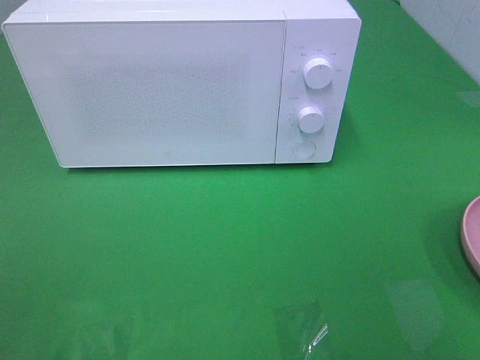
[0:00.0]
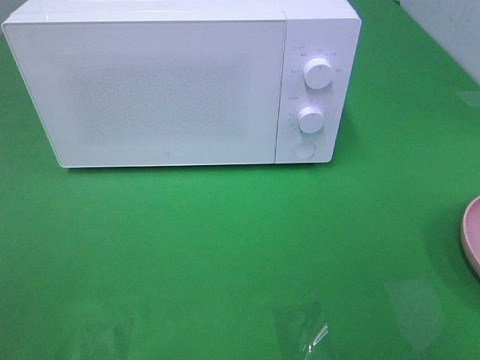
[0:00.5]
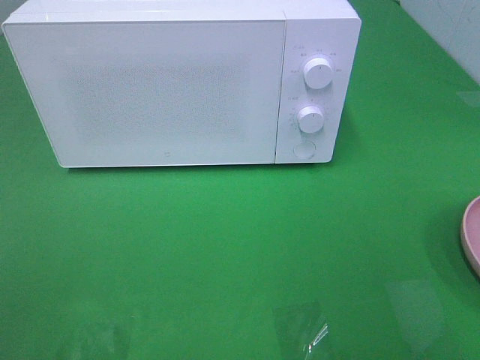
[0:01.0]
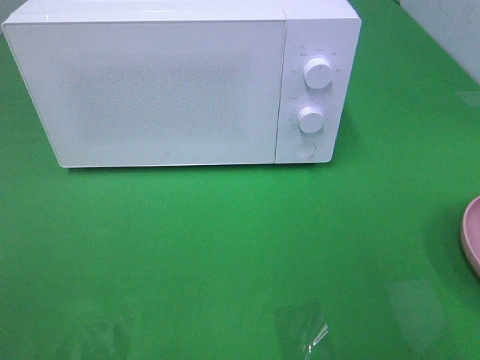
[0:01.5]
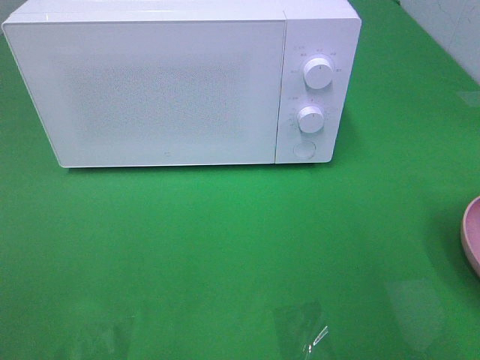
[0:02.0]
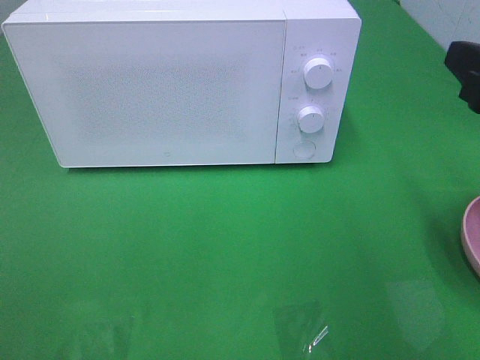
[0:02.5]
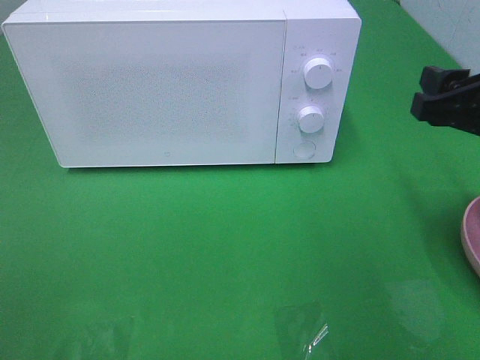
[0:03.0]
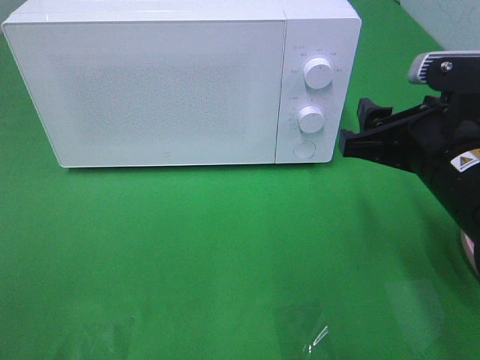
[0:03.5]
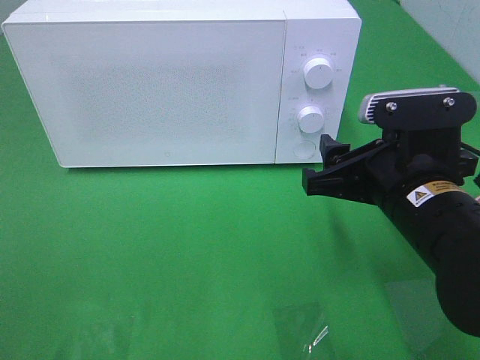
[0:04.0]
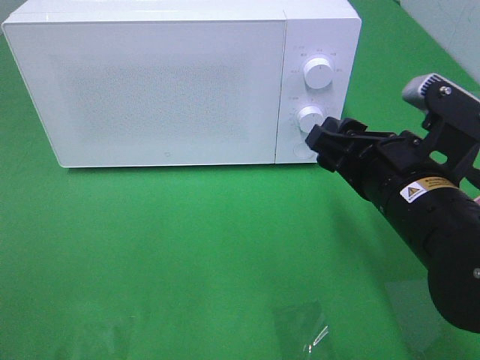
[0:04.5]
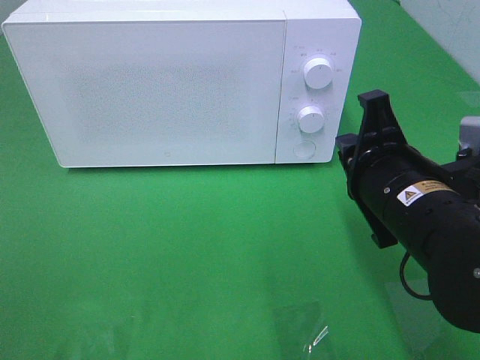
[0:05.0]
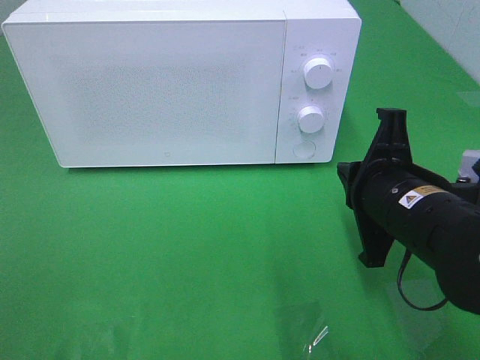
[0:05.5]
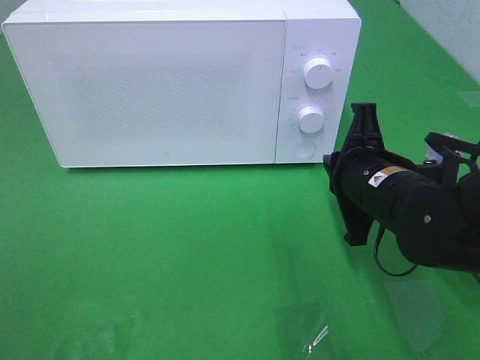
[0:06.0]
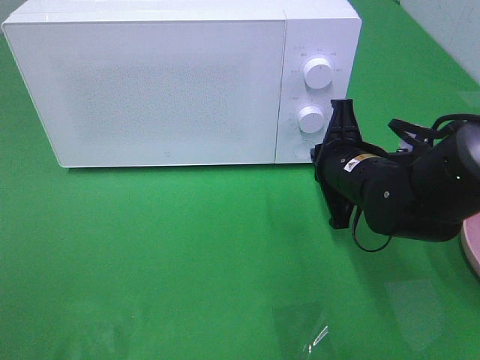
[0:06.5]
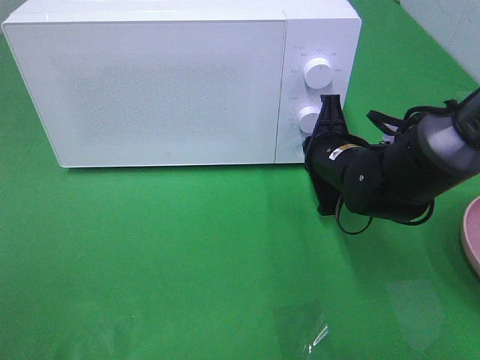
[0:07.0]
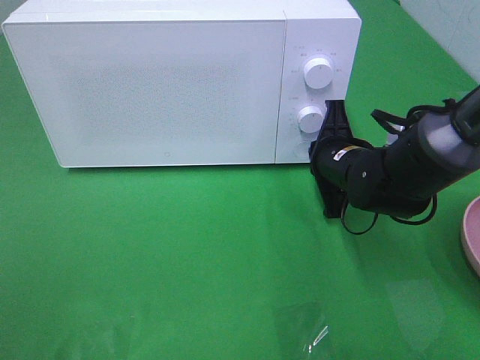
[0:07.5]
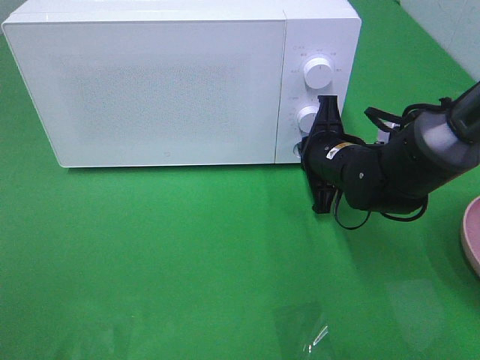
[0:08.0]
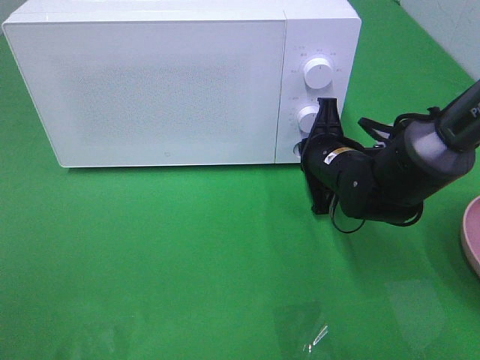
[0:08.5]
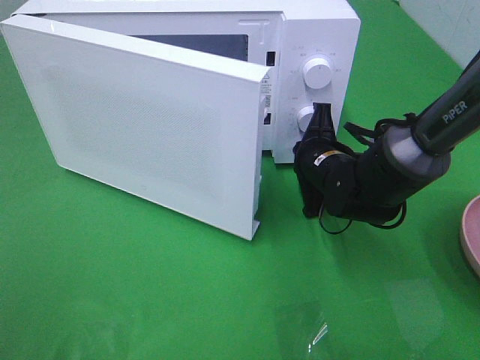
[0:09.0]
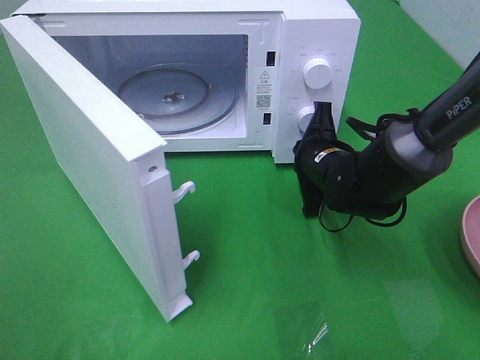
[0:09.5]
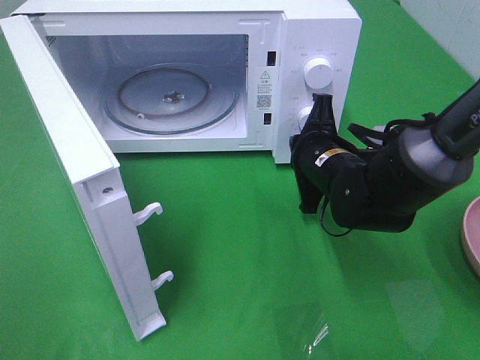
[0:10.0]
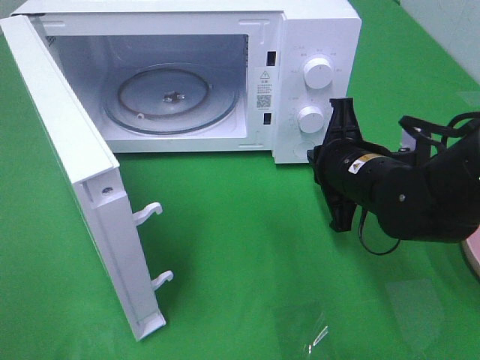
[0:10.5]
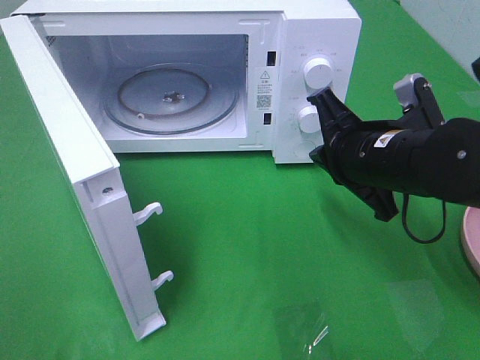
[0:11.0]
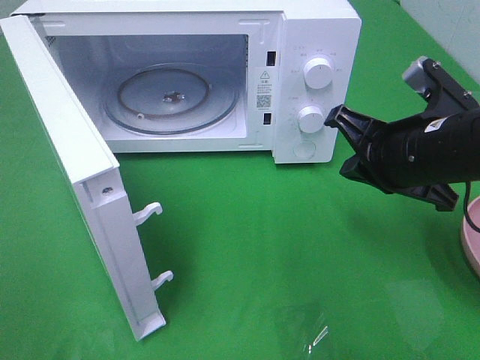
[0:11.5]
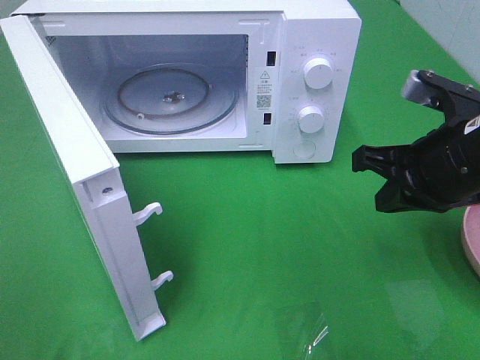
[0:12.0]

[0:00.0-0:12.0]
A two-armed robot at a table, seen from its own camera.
Task of the whole recording: Heat the burger.
Step, 0:00.0 to 0:09.5: Right hand: press the switch.
0:02.0 to 0:04.0: The right gripper shifts some 15 cm downward, to the left and forward.
0:04.0 to 0:06.0: The right gripper shifts some 5 cm forward, and closes.
0:06.0 to 0:08.0: The right gripper heads forward, covering about 10 cm.
0:10.0 to 0:12.0: The right gripper is displaced upward, to the right and backward by about 15 cm.

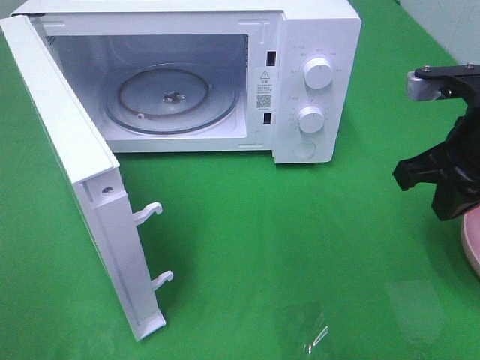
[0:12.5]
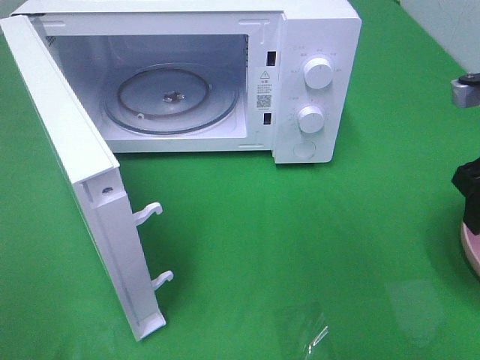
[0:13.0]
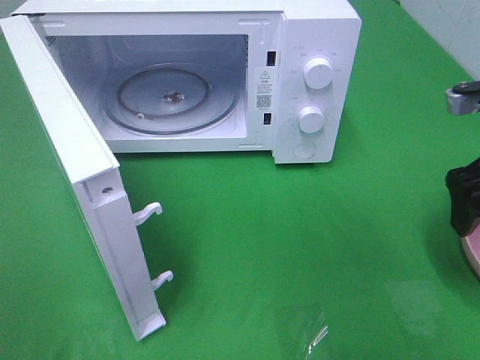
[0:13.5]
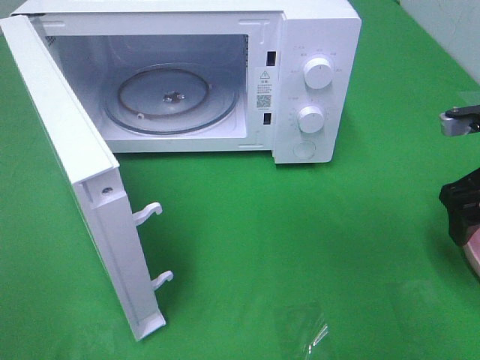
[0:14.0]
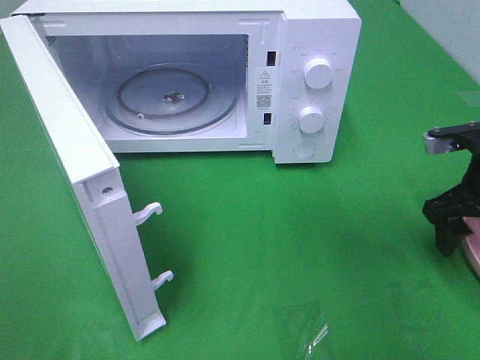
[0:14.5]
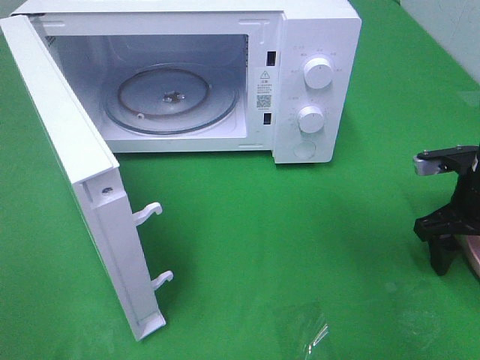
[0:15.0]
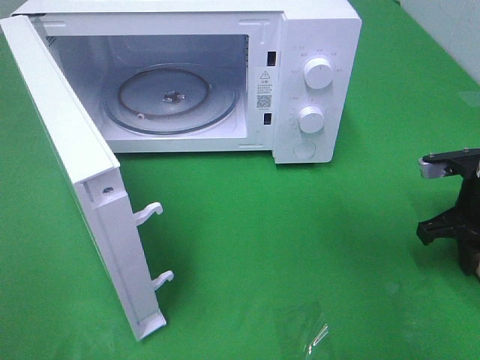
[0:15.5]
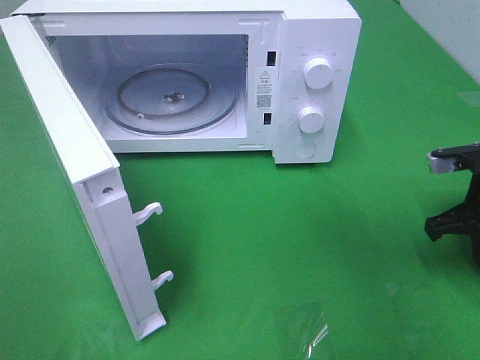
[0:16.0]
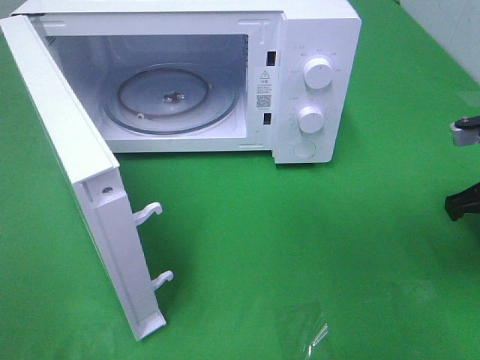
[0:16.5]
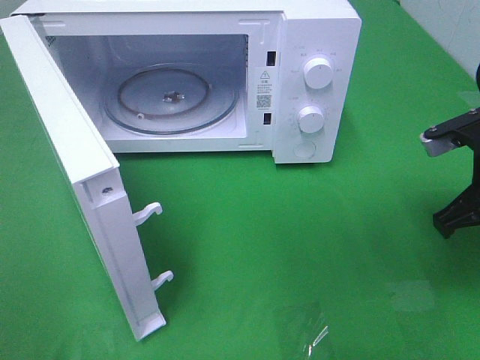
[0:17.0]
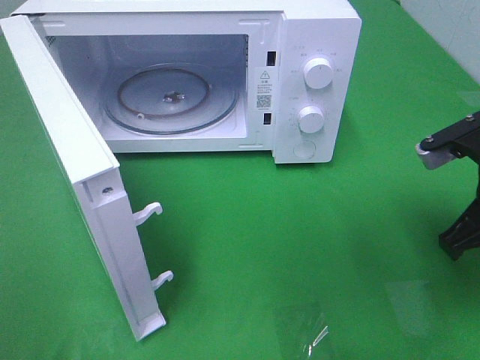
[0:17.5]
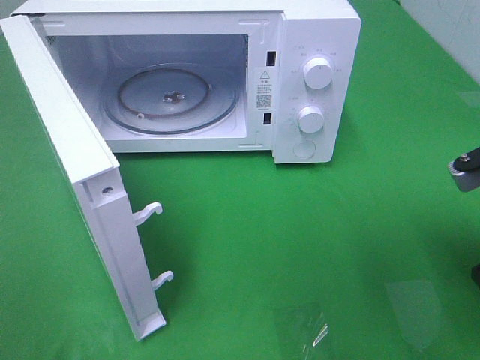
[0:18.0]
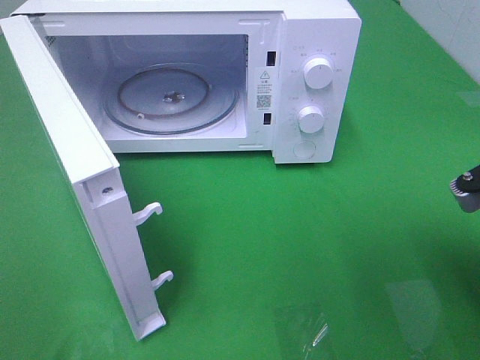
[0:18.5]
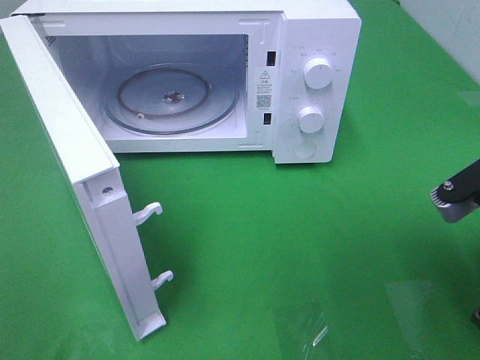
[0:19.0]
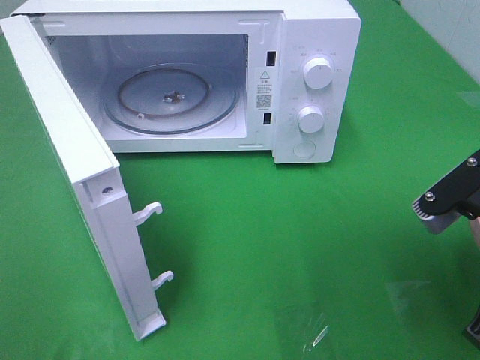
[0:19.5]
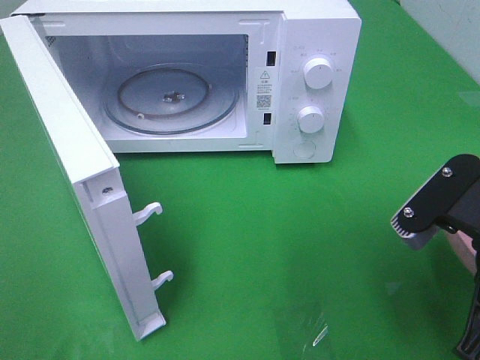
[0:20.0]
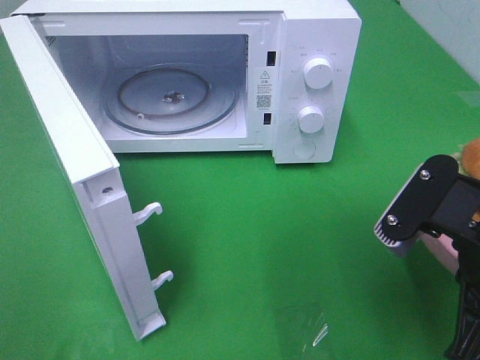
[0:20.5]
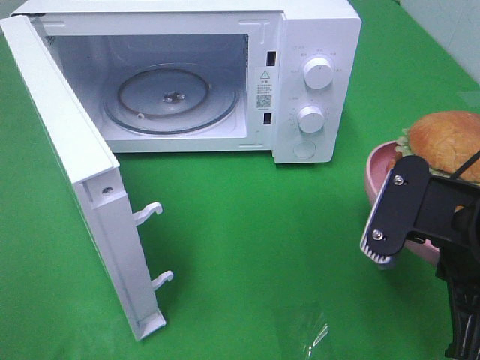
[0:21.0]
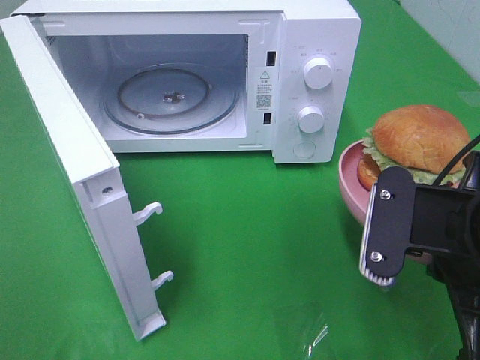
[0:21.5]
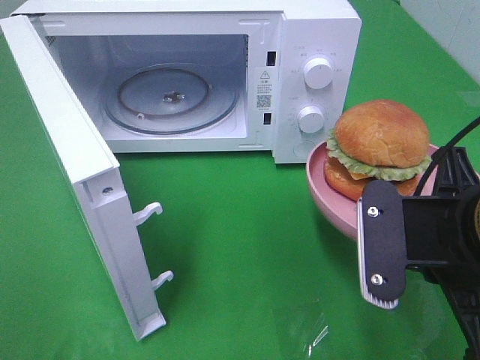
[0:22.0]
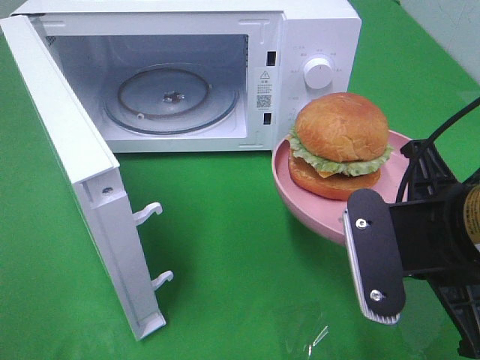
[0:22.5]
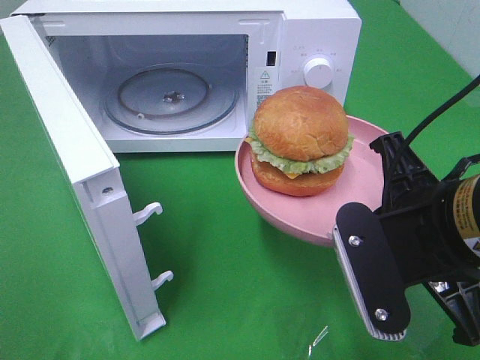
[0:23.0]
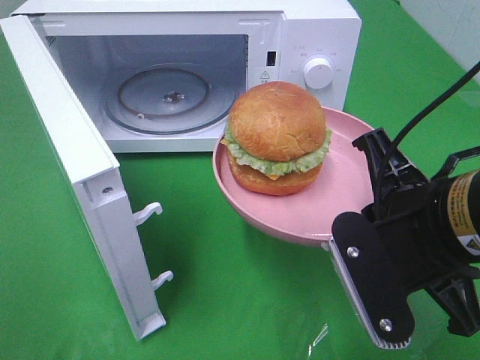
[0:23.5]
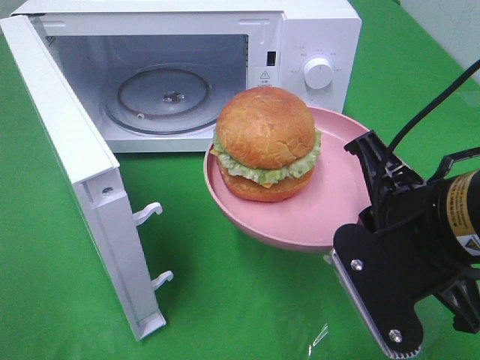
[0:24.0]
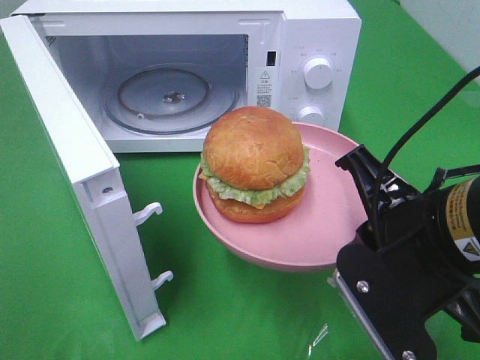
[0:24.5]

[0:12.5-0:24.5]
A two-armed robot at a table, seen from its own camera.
Task of the whole recording: Heat the burger.
Step, 0:12.5 to 0:15.5: Right hand: grab the plate with the hamburger.
0:12.5 to 0:14.5: The right gripper moves downward and to the right, some 10 cm, and opens up.
0:14.5 to 0:16.5: The right gripper closes its fingers.
0:16.5 to 0:18.5: The right gripper moves backward and to the left, about 10 cm.
0:18.5 to 0:20.5: The right gripper travels to the left by some 5 cm.

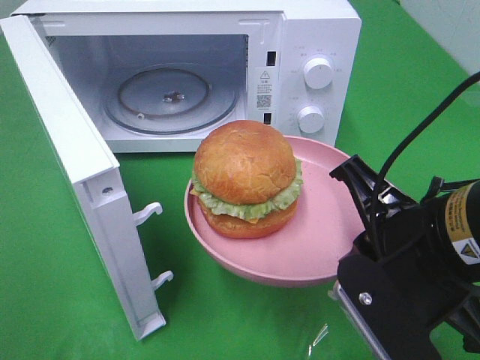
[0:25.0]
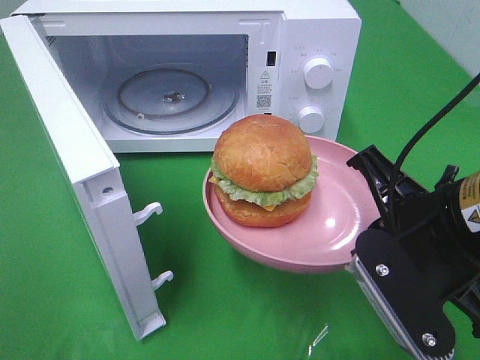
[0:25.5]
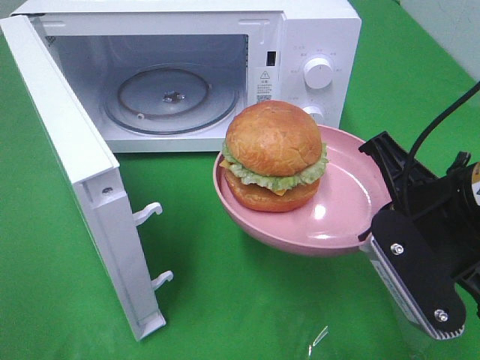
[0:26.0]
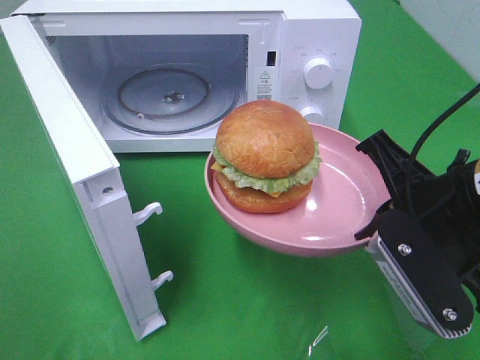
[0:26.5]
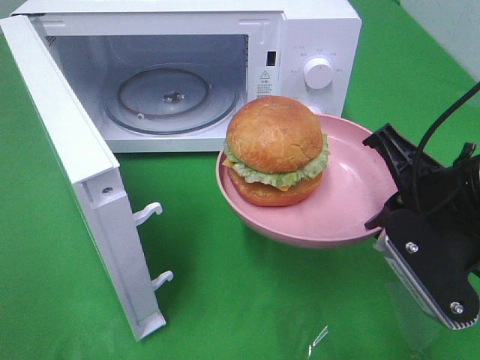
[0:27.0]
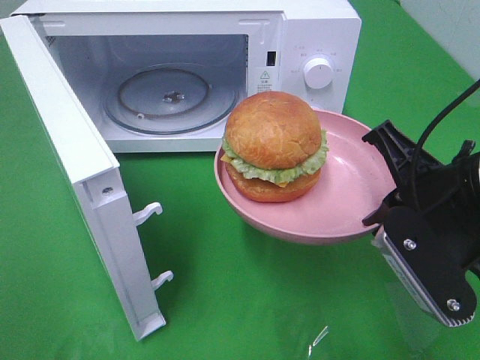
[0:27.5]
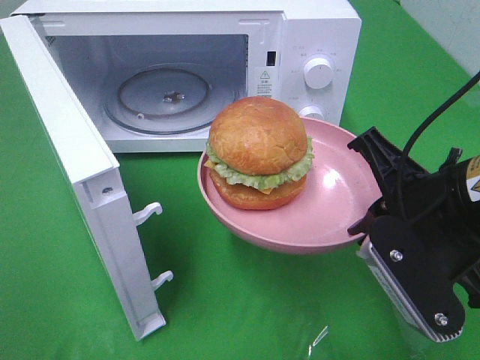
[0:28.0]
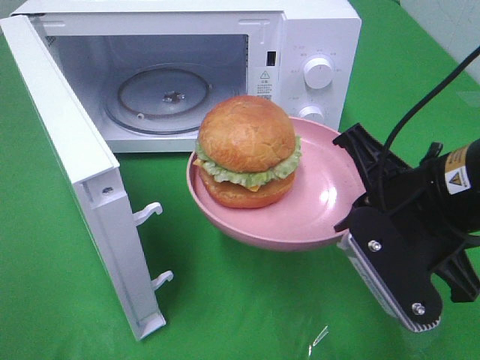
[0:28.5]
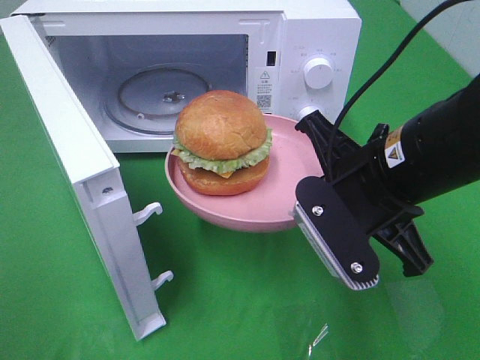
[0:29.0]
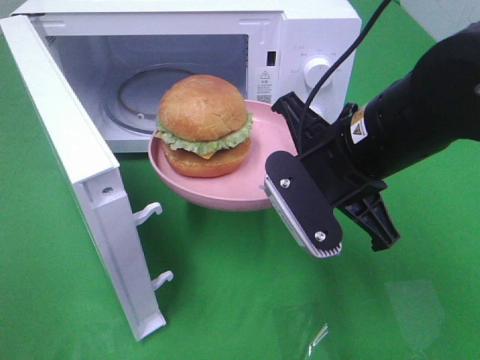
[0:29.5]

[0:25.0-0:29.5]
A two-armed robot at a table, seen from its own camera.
Task of the whole recording: Heat the burger.
0:25.0 to 0:27.0: The right gripper shifts by roughly 5 cm.
0:27.0 to 0:29.5: The right gripper is displaced to the left and forward by some 10 cm.
